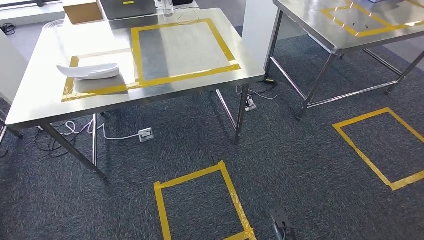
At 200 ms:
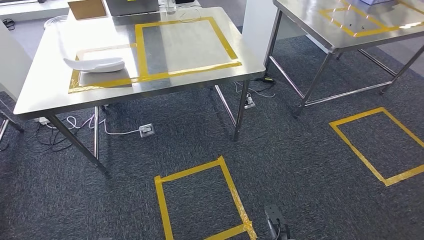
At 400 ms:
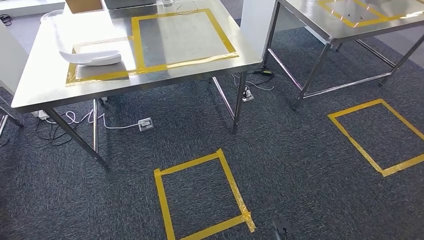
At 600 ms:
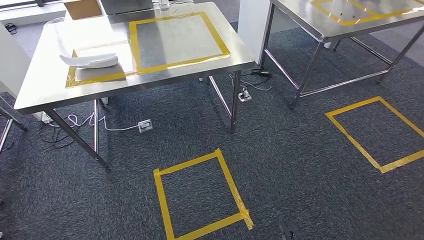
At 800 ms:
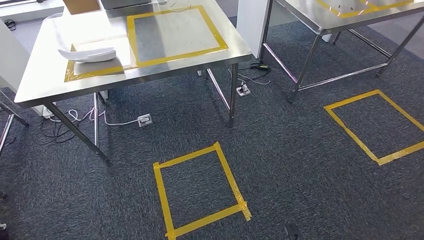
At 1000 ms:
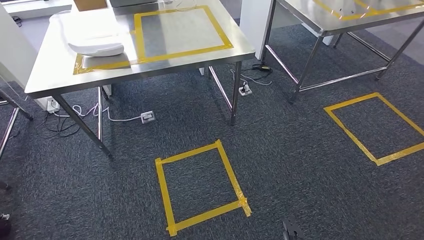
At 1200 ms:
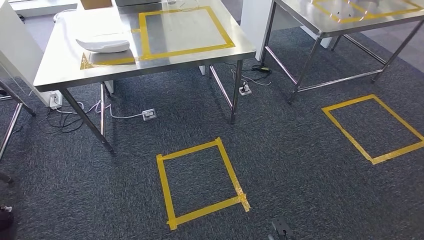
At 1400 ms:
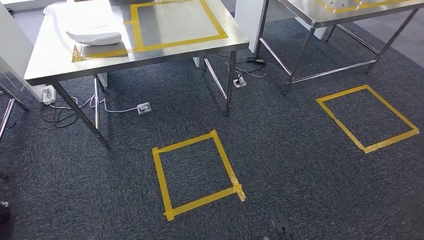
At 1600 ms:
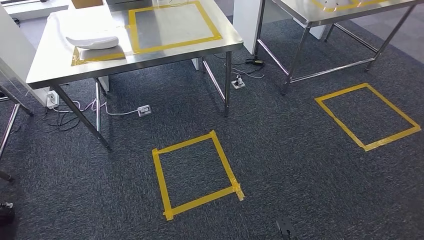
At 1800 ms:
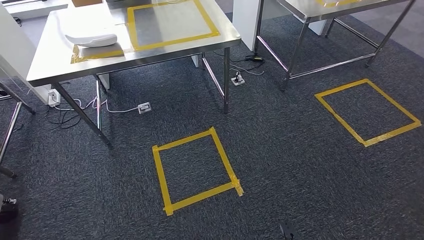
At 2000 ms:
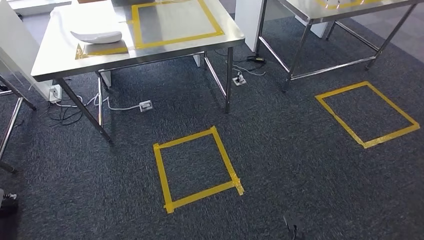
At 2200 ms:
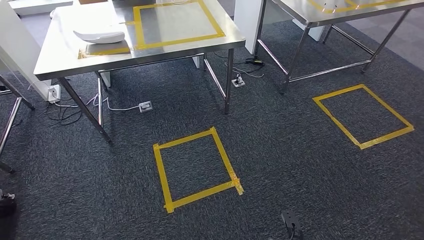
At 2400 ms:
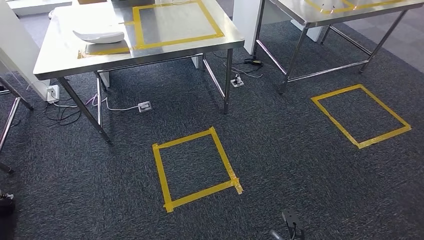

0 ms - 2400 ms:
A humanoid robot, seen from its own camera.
Step, 0 ms - 2400 ms: Return to the initial position at the workbench.
